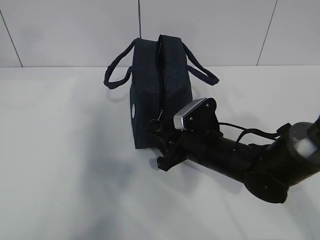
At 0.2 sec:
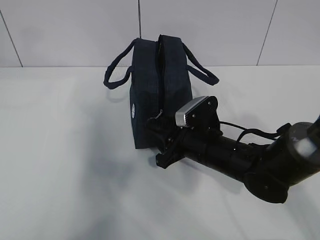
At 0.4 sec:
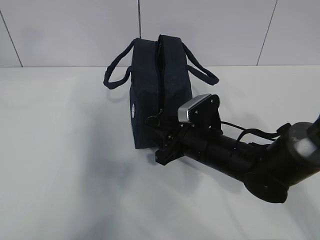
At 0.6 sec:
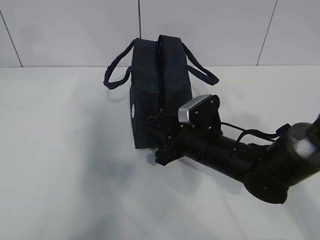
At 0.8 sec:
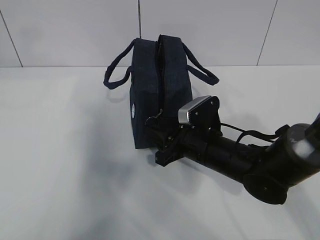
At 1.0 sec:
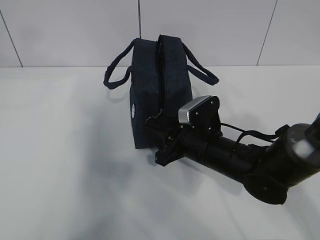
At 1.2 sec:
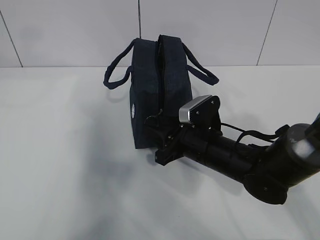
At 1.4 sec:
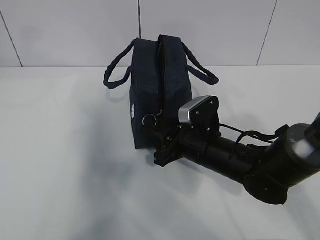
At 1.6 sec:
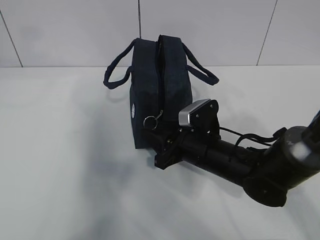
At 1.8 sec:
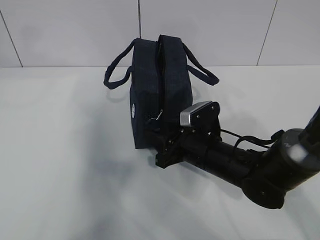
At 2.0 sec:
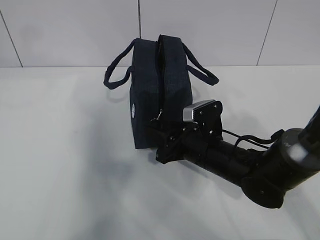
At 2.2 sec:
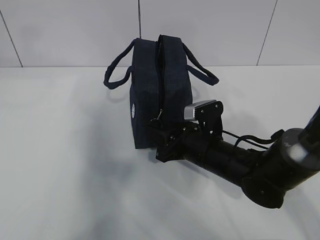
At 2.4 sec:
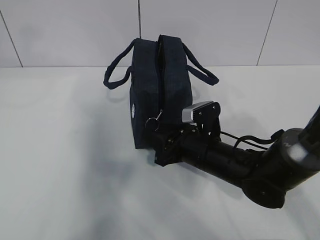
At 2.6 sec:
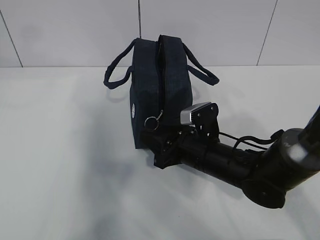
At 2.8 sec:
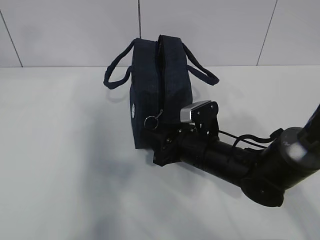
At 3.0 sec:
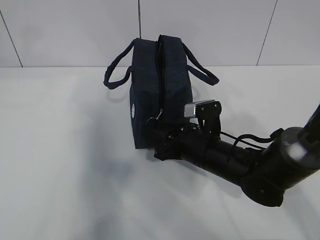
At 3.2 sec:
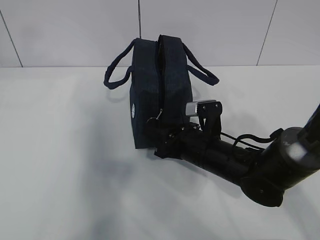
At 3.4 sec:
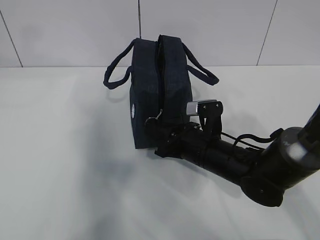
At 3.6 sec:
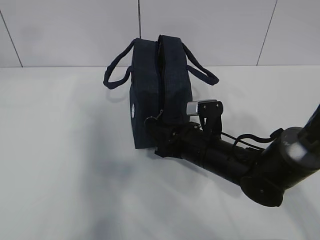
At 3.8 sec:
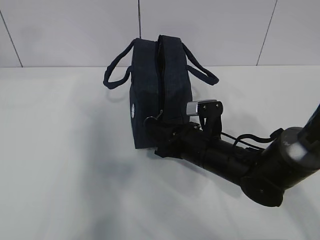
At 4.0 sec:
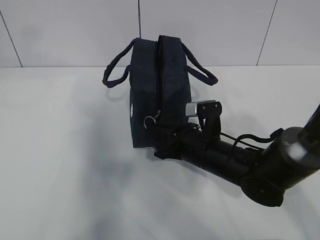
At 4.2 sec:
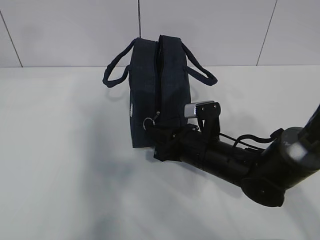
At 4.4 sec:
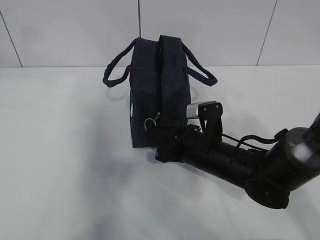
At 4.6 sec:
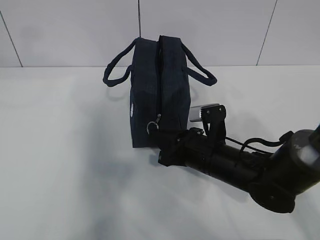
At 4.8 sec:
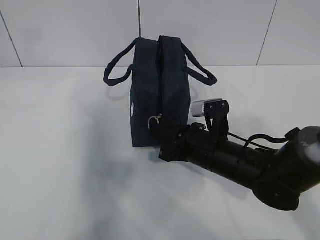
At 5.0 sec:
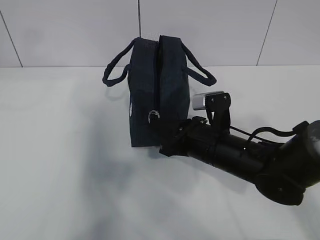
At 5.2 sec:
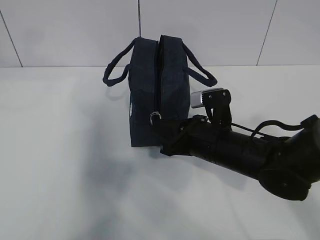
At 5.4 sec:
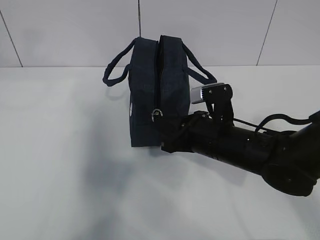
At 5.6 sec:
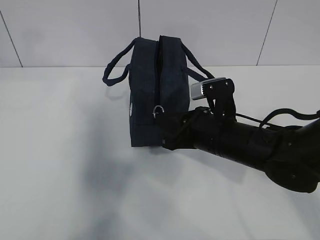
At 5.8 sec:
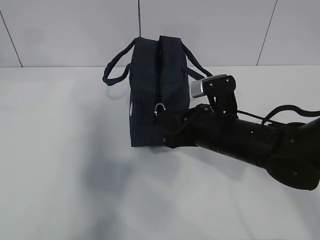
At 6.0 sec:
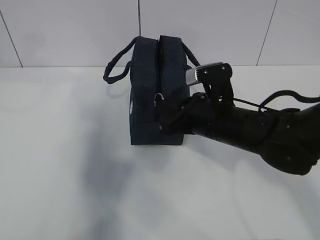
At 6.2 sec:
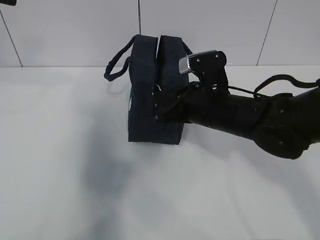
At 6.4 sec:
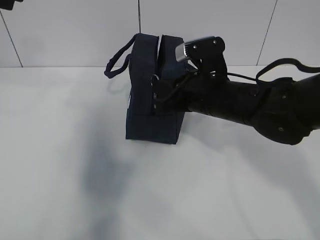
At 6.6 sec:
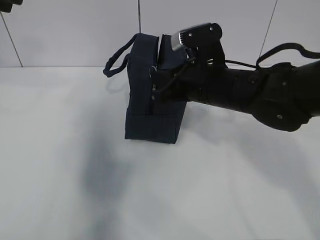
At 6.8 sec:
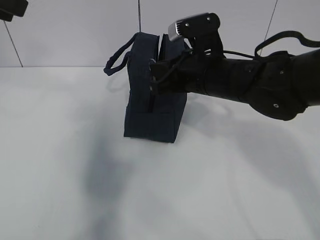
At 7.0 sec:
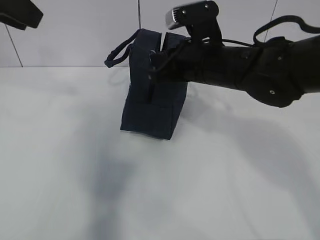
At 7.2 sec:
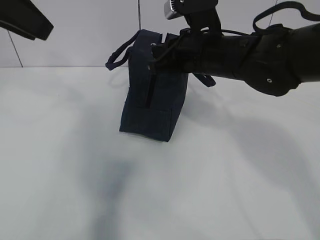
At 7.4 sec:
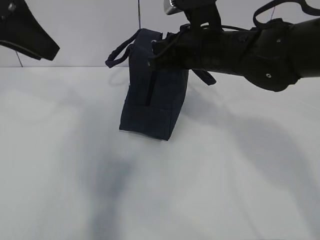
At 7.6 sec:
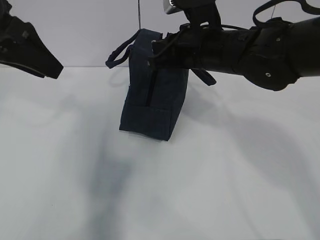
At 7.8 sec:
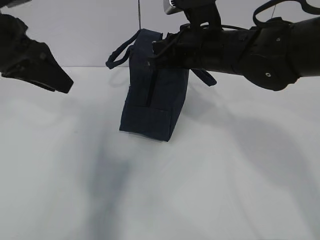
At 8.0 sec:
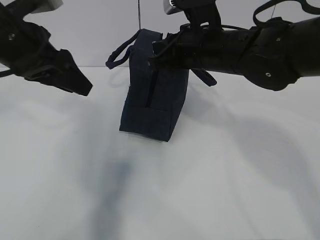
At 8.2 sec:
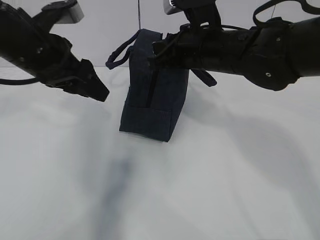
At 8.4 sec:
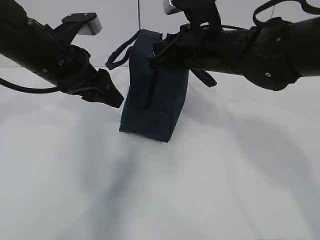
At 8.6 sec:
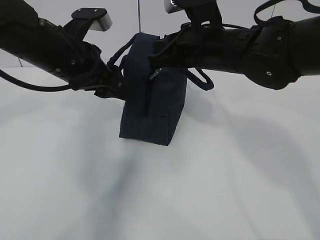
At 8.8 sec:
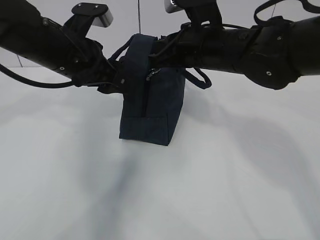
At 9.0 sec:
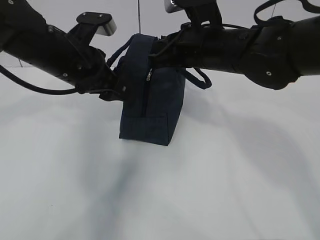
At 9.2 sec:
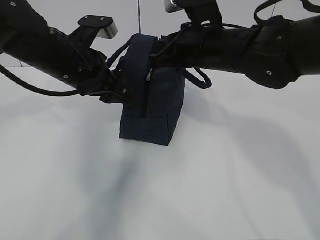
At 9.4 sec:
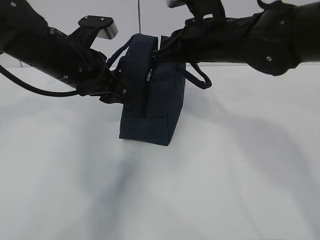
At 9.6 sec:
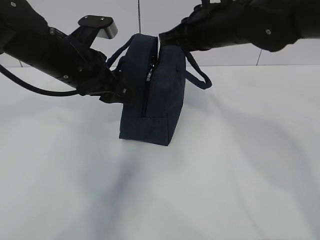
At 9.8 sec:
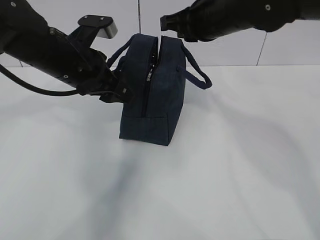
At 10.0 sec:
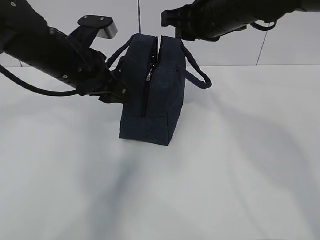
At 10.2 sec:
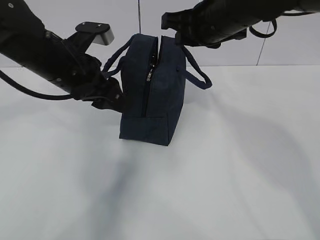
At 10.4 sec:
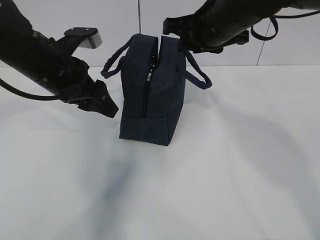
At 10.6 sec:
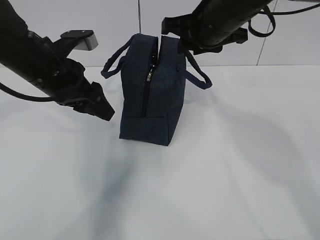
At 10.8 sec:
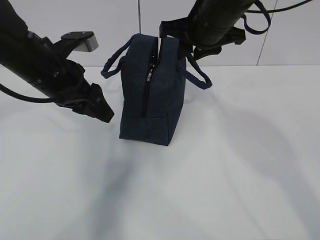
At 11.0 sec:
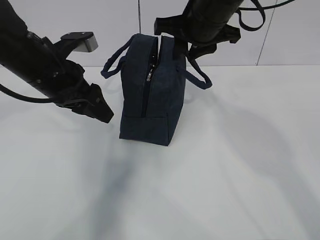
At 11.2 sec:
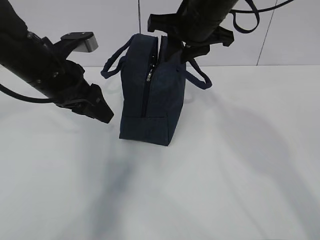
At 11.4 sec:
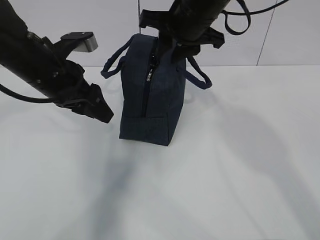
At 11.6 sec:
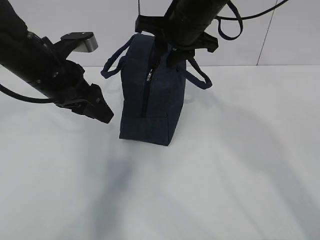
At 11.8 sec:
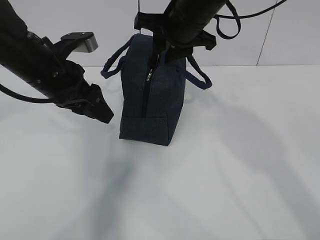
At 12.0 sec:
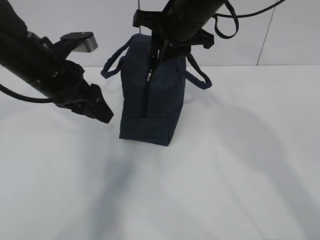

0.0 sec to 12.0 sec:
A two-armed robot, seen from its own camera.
0.0 sec to 1.6 sec: The grippers move only a little.
1.6 sec to 3.0 sec: The grippers make only small movements.
3.0 sec to 4.4 sec: The right gripper closes its fingers.
4.4 sec to 6.0 sec: The right gripper travels upward by about 5 cm.
6.0 sec to 7.6 sec: The right gripper heads upward and forward, covering about 10 cm. Meanwhile the left gripper is displaced downward by about 10 cm.
7.6 sec to 9.0 sec: The left gripper moves downward and to the right, roughly 15 cm.
9.0 sec to 10.4 sec: The right gripper opens up.
10.4 sec to 12.0 sec: The right gripper ends up approximately 5 cm from where it was.

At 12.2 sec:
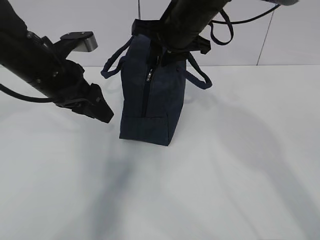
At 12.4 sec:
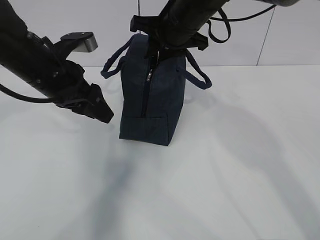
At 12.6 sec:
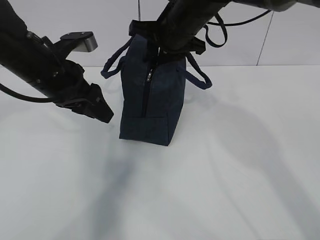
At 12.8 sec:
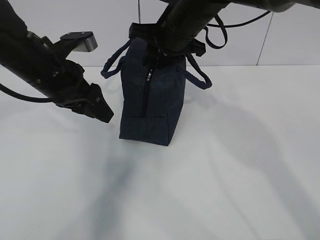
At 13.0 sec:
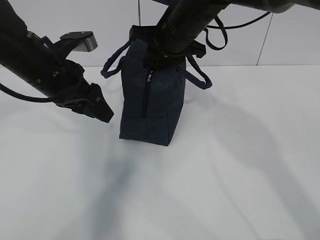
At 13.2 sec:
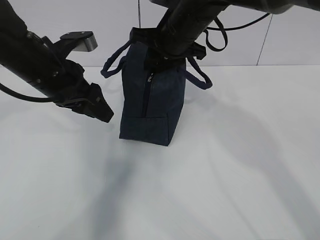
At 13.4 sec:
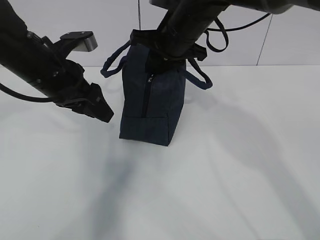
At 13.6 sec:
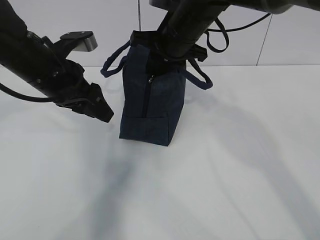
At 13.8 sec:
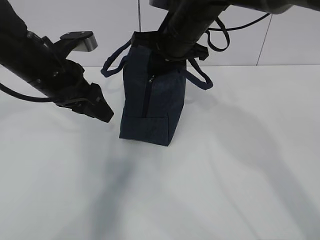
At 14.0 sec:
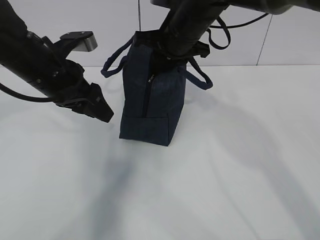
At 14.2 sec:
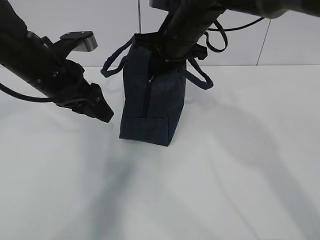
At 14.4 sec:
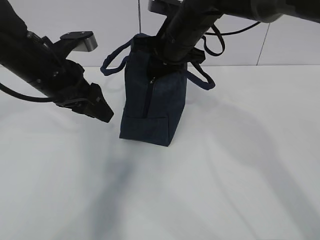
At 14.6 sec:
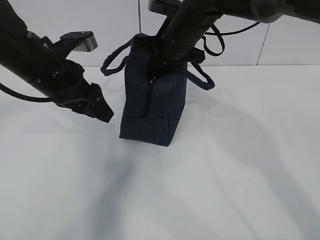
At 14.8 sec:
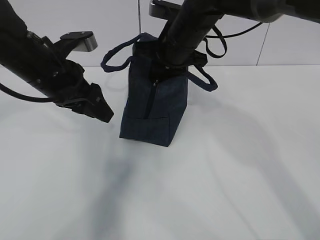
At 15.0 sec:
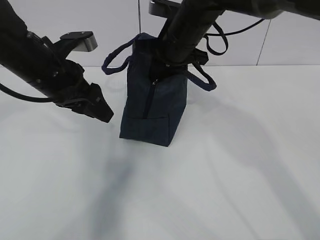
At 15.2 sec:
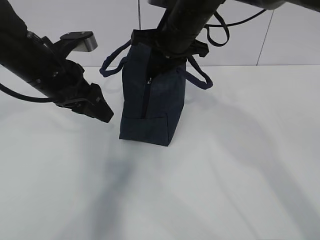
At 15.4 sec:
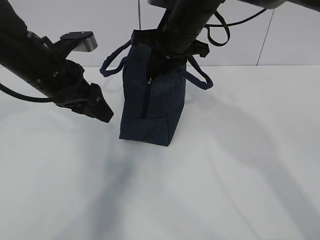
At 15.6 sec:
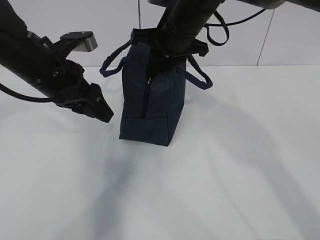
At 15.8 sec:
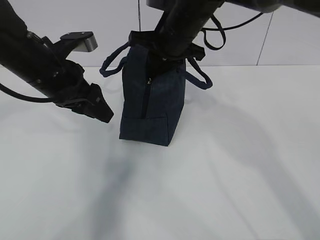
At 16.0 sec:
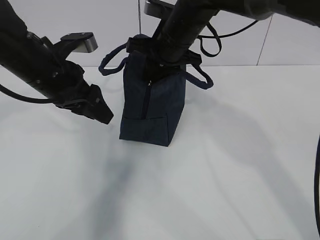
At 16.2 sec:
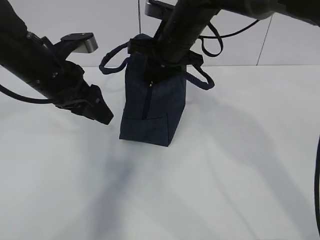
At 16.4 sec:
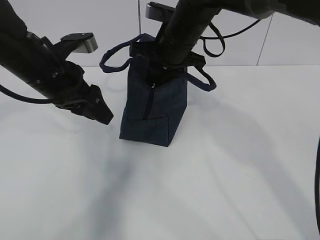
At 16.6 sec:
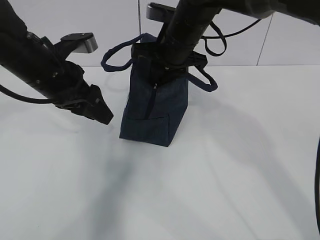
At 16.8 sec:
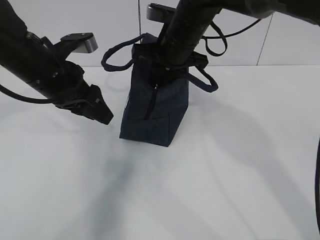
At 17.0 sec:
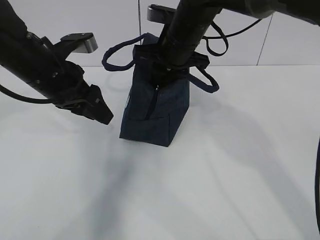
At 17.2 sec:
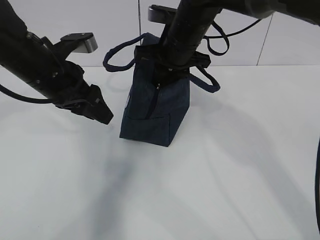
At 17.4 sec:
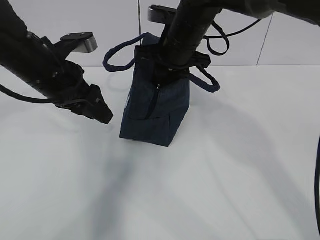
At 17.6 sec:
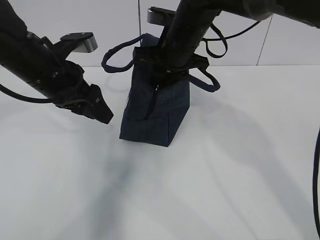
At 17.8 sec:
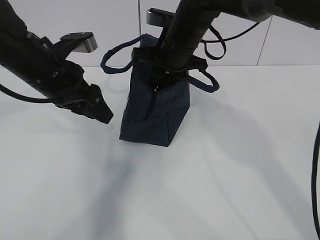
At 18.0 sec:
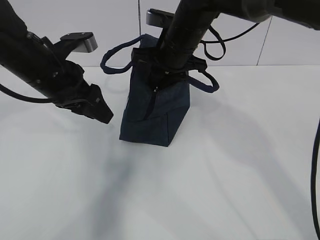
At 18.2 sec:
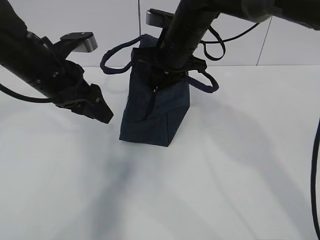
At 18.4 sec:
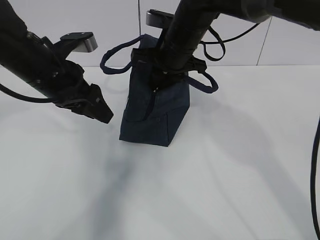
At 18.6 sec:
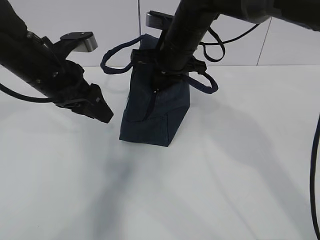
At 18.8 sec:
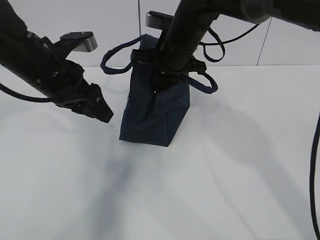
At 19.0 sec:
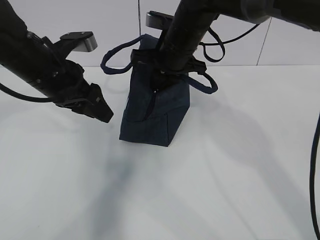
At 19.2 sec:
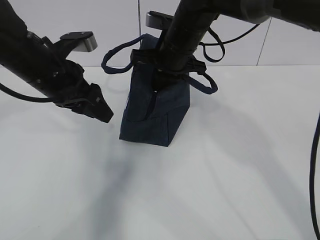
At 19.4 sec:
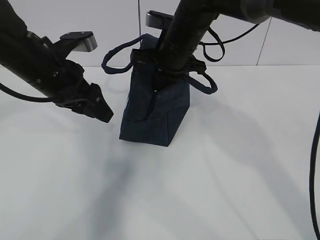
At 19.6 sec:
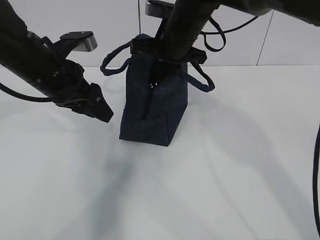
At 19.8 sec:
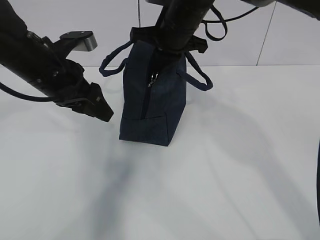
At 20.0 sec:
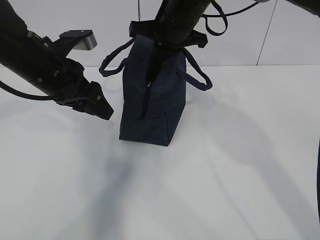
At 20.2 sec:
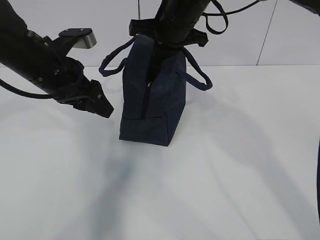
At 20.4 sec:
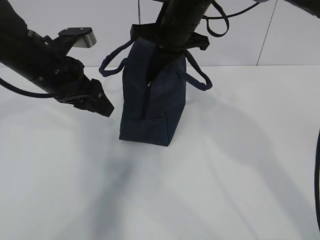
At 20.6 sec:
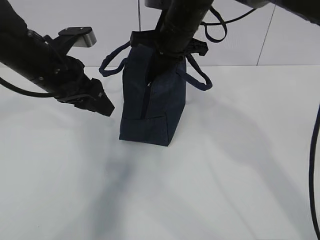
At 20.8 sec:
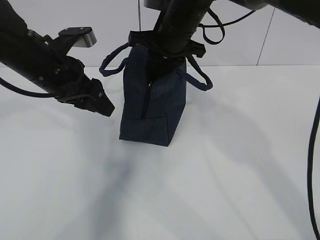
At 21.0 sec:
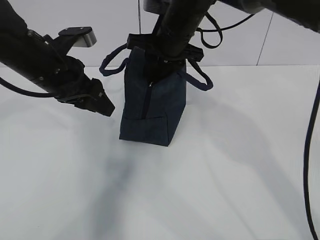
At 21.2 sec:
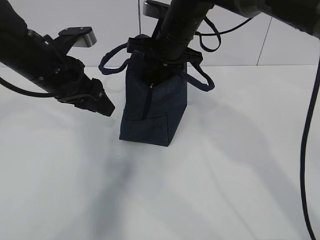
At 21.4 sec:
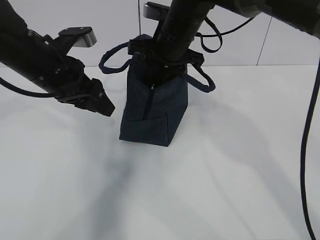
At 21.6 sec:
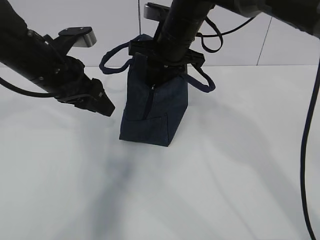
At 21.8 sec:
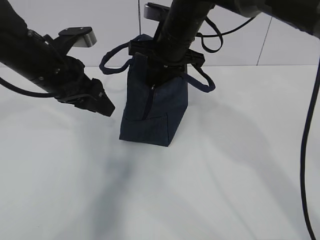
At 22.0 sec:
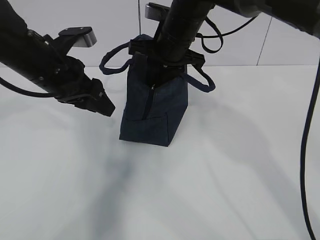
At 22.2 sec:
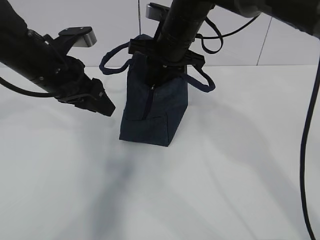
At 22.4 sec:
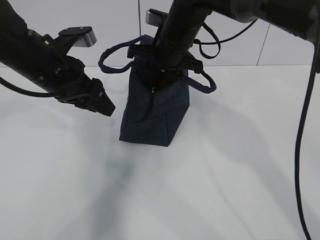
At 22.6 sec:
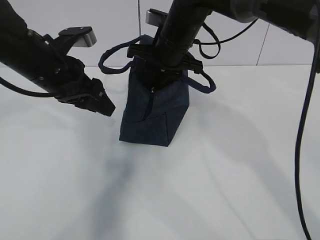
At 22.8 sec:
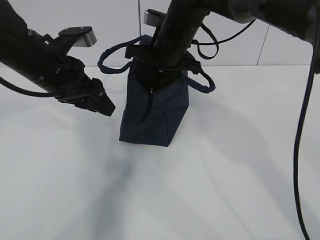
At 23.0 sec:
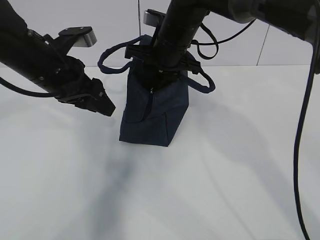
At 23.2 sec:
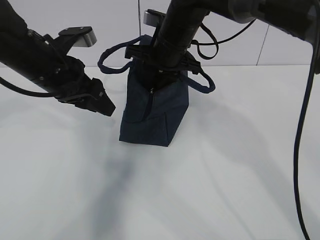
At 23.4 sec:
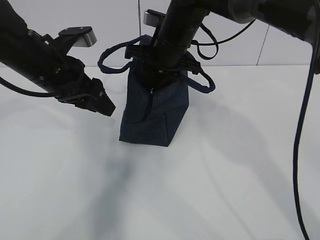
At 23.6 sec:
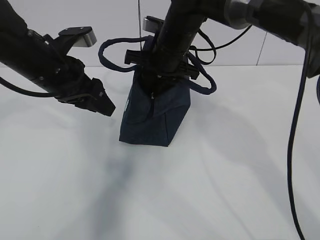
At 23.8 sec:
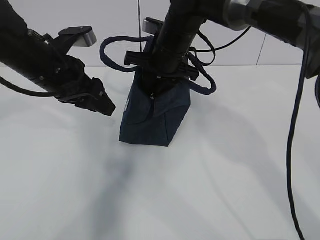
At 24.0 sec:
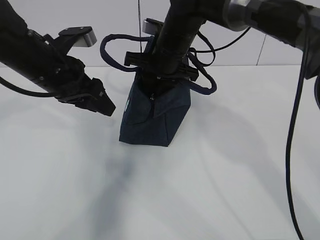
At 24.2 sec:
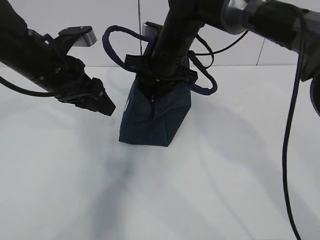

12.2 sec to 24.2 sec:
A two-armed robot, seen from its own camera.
12.2 sec to 16.6 sec: The grippers stay close to where they were, moving slightly.
16.6 sec to 18.2 sec: Neither gripper changes place.
18.2 sec to 19.8 sec: The right gripper closes up.
19.8 sec to 21.2 sec: The right gripper opens up.
21.2 sec to 24.2 sec: The grippers move only a little.
